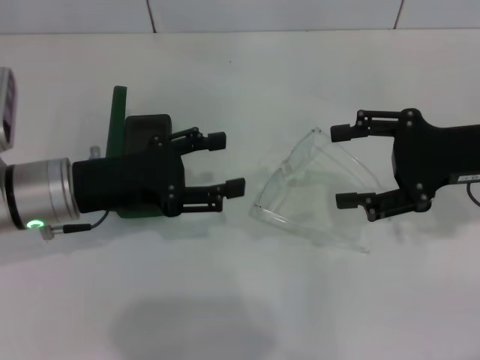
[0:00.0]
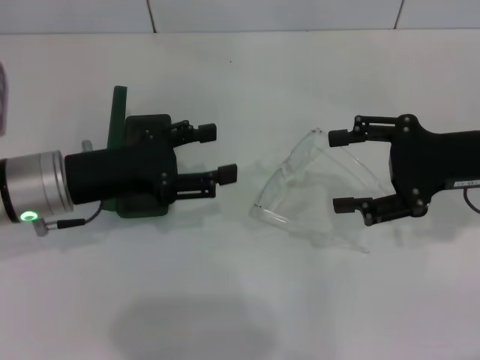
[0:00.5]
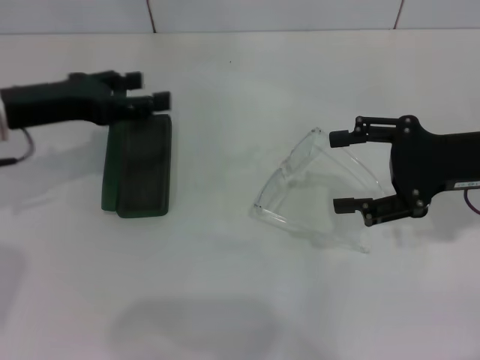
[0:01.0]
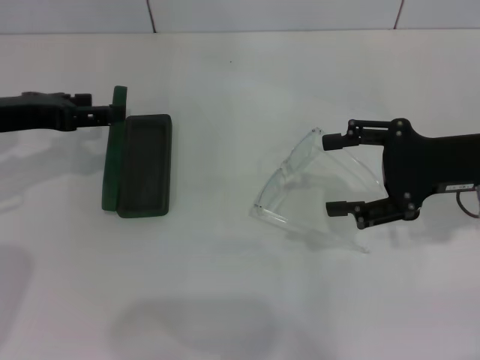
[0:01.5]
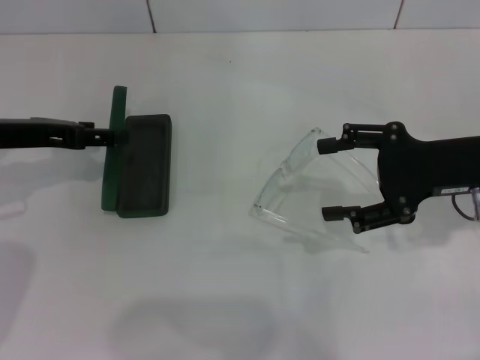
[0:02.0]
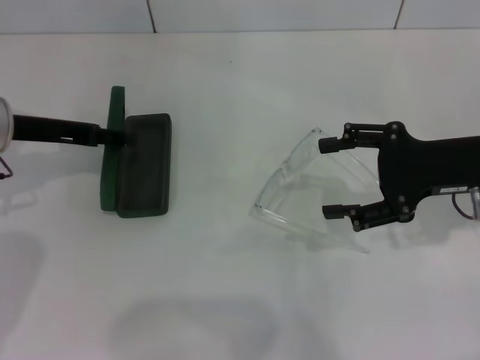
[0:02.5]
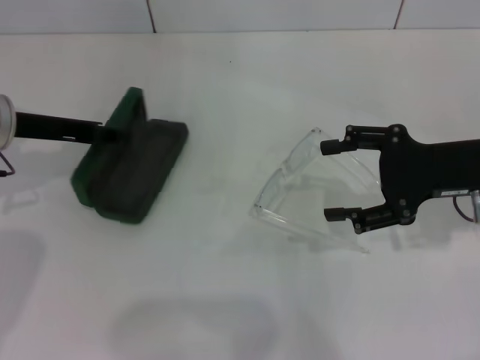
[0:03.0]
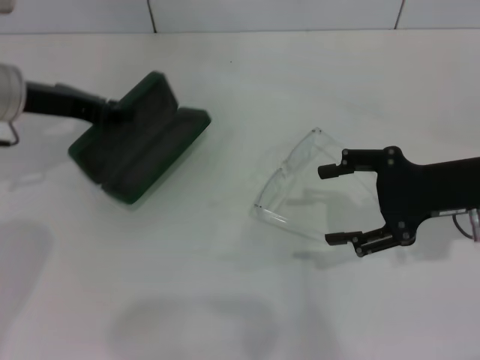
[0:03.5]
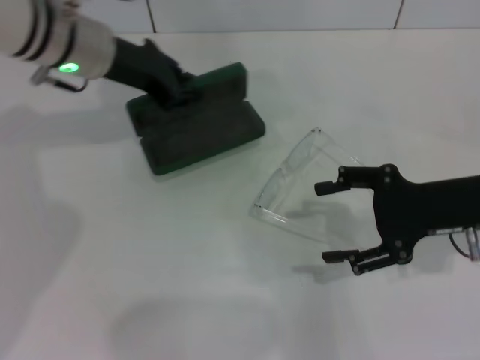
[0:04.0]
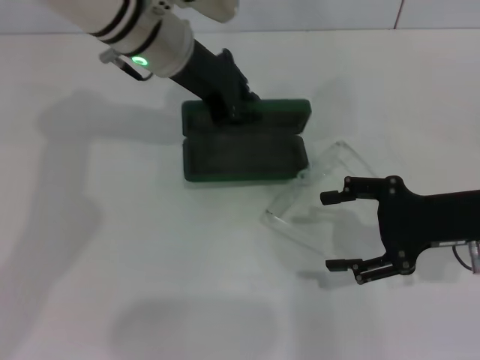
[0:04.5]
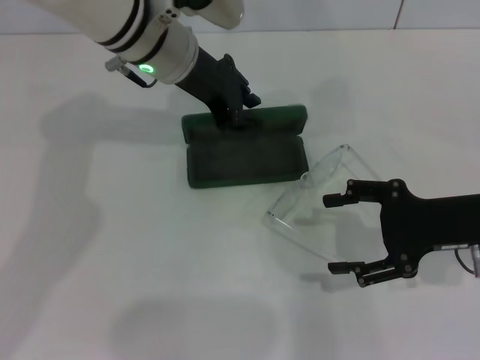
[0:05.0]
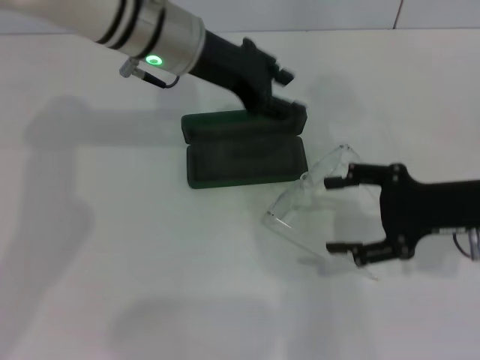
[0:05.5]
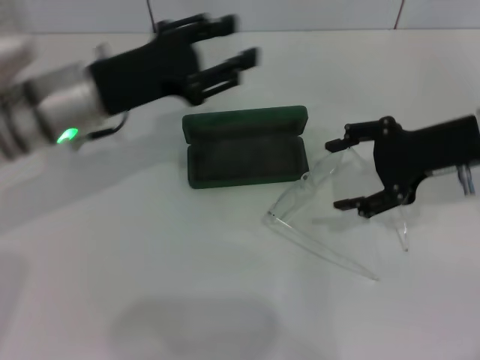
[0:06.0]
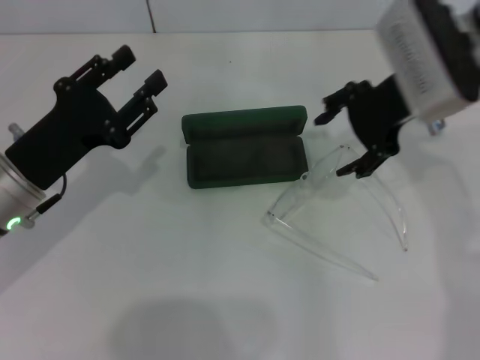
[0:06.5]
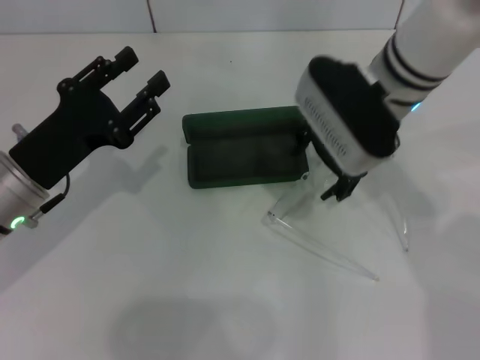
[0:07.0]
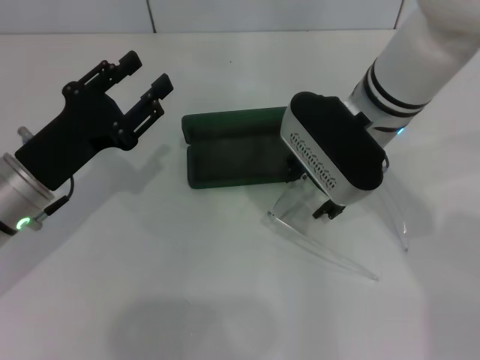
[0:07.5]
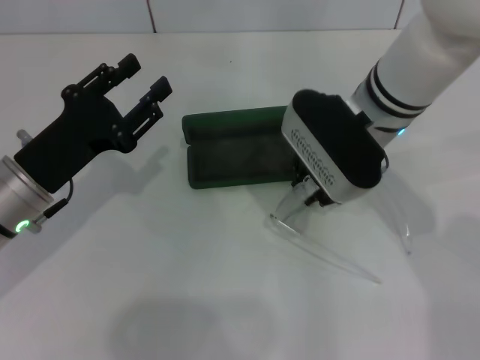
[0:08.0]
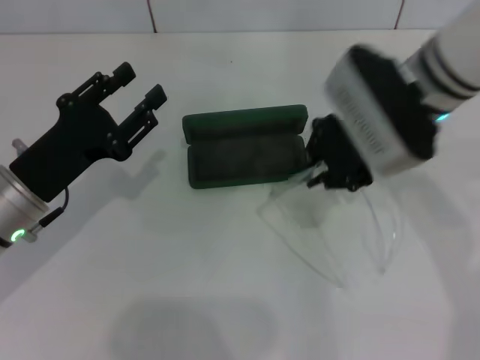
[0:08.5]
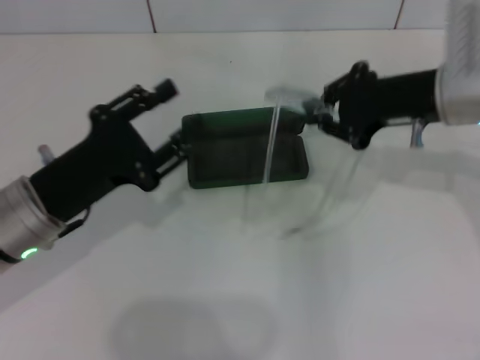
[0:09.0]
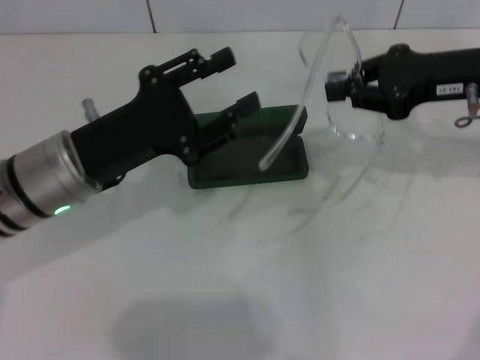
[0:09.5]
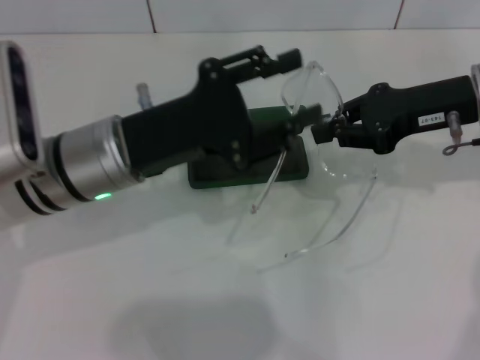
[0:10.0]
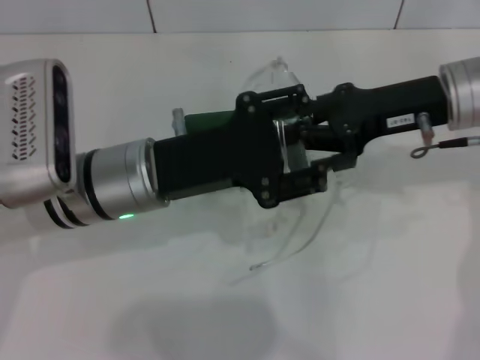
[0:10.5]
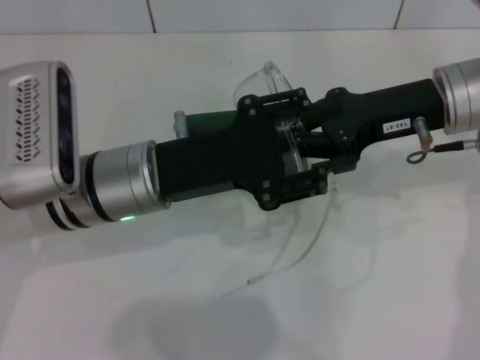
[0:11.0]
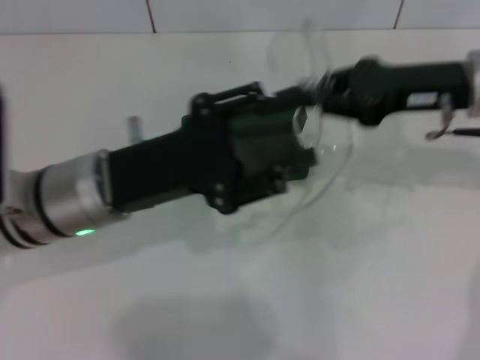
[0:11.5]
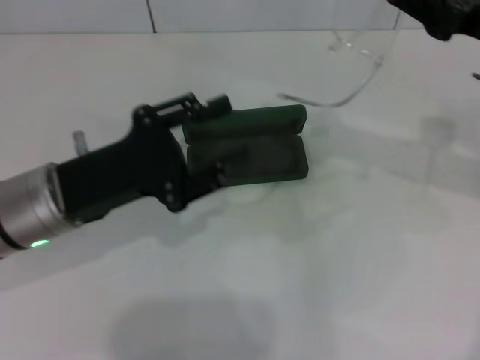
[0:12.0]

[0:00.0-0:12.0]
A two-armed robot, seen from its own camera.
Step, 0:00.0 to 0:02.5: Grab the glasses case with your left hand.
Step, 0:03.5 to 0:05.0: Place the glasses case in the center of the table with your left hand.
Step, 0:05.5 to 0:08.0: Grab the eyeglass frame with your right hand.
0:00.0 to 0:02.0: The left gripper heads to the left, covering about 10 cm.
0:02.0 to 0:04.0: The left gripper is displaced to the right and forward by some 15 cm, and closes.
0:04.0 to 0:06.0: The right gripper shifts by some 5 cm, while the left gripper shifts some 10 cm backward, goes to the right and returns, roughly 10 cm each way, and opens its fingers.
0:06.0 to 0:08.0: The right gripper is displaced to the left by approximately 15 cm, and closes. Meanwhile the left gripper travels backward and downward by about 10 cm.
0:08.0 to 0:10.0: The left gripper heads to the right, covering about 10 cm. Meanwhile the right gripper travels to the right by roughly 15 cm, and closes.
0:10.0 to 0:12.0: The left gripper changes place by about 5 cm.

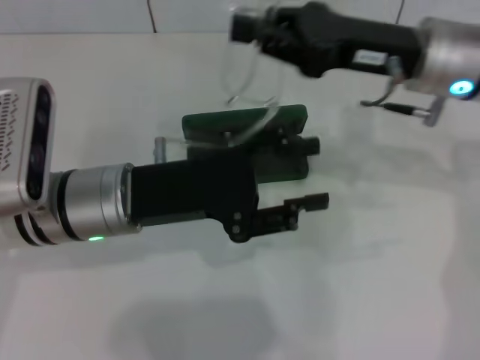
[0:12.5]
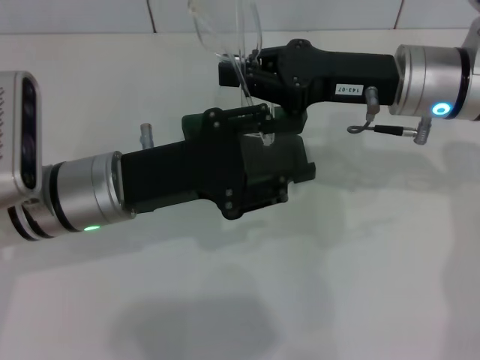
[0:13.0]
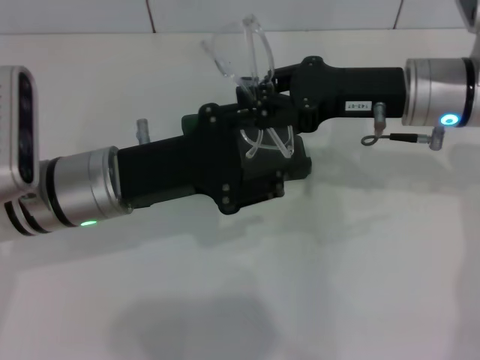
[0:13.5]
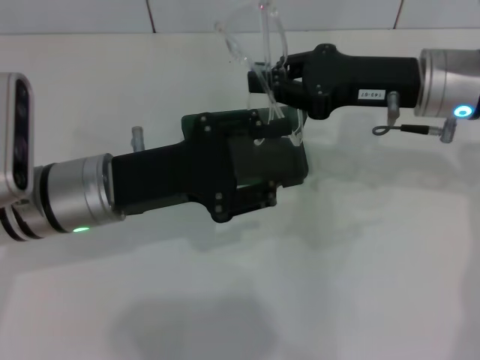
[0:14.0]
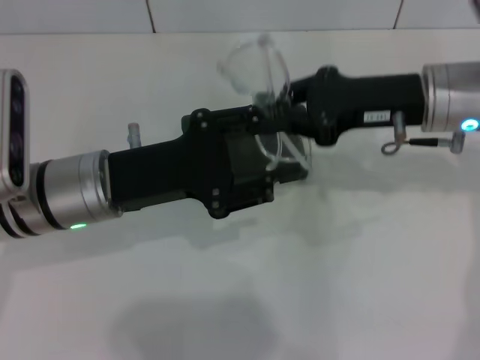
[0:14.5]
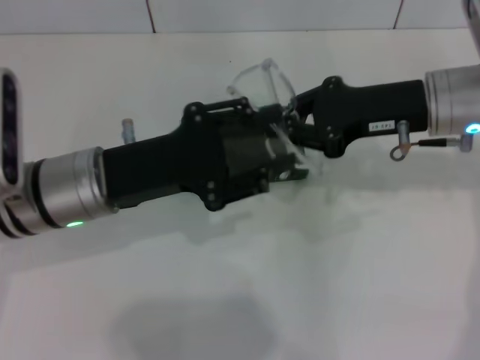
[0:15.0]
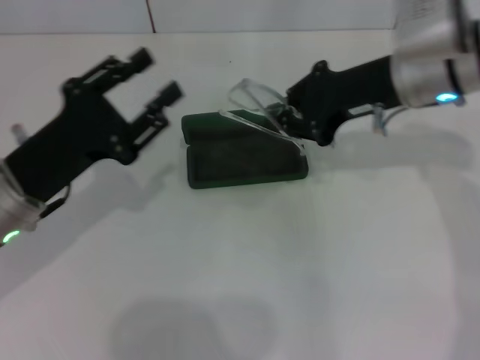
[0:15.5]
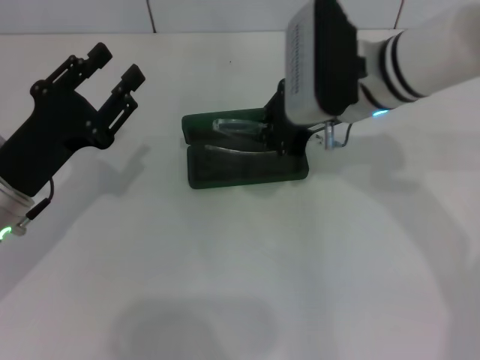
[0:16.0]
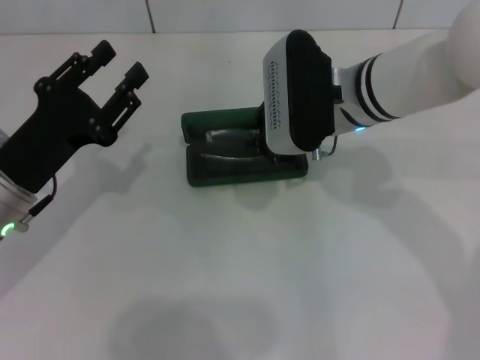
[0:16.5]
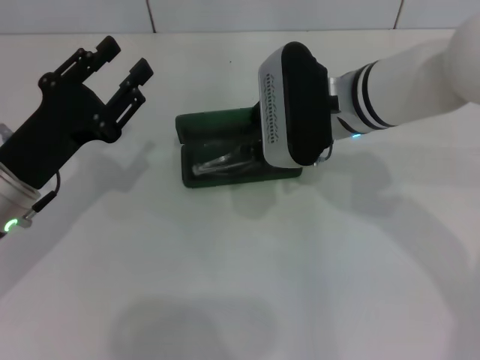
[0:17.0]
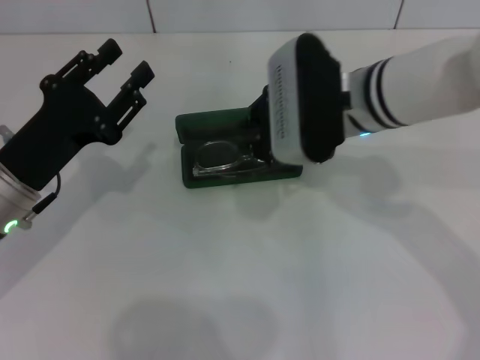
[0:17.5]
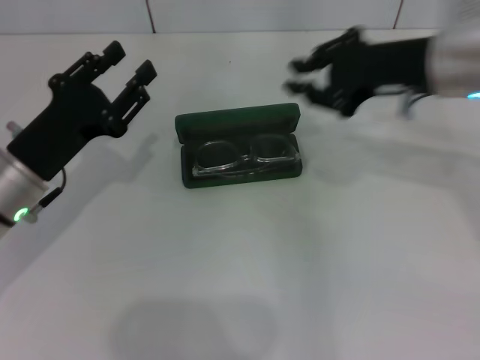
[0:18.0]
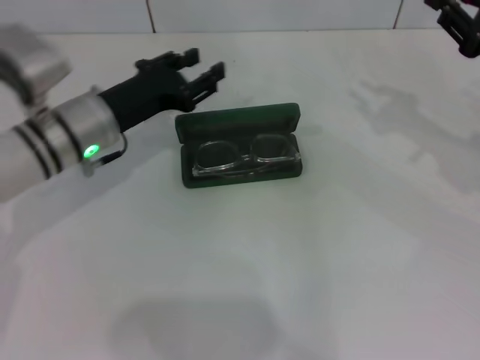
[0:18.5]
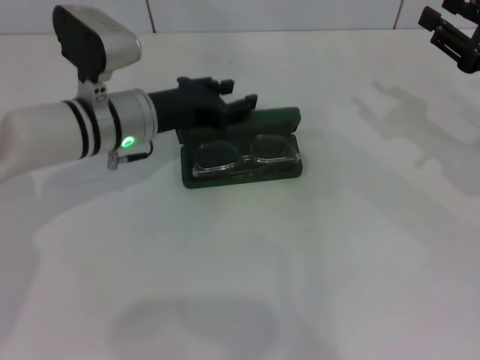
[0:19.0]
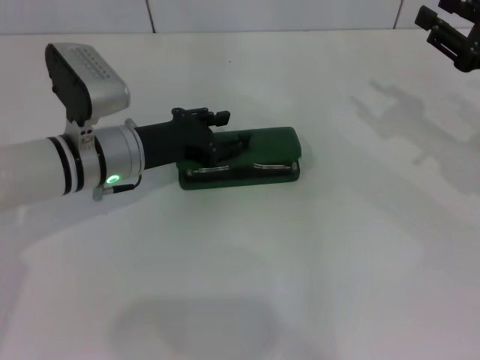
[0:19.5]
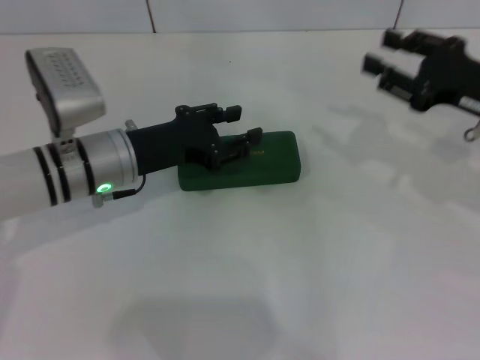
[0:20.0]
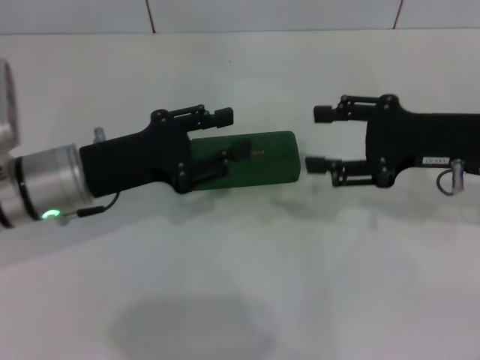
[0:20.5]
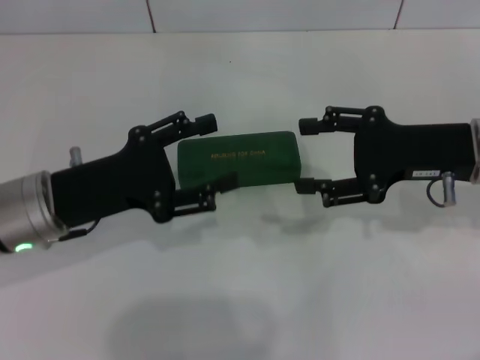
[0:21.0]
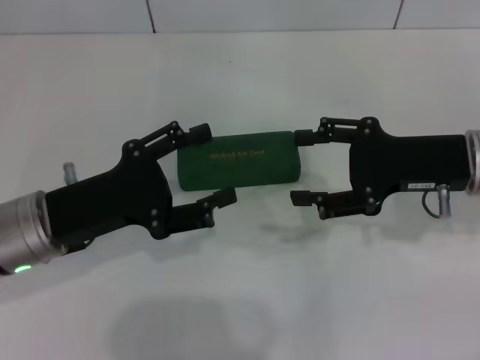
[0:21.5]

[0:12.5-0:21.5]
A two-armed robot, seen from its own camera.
Step, 0:14.0 to 0:17.0: Put the glasses into the case with your right hand.
Step, 0:17.5 to 0:19.5: Close the glasses case with your left hand.
0:14.5 to 0:17.0: Both grippers travel together to the left, approximately 10 cm.
0:17.0 to 0:19.5: The right gripper moves to the right, some 25 cm, and opens; the left gripper shifts roughly 10 cm forward and to the right.
0:19.5 to 0:21.5: The left gripper moves backward and to the left, roughly 10 cm, and opens, while the right gripper moves to the left, about 10 cm, and opens.
